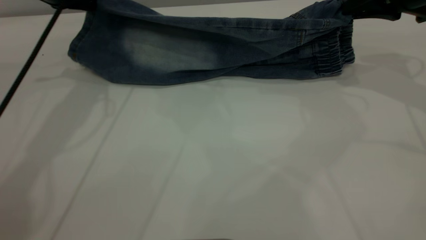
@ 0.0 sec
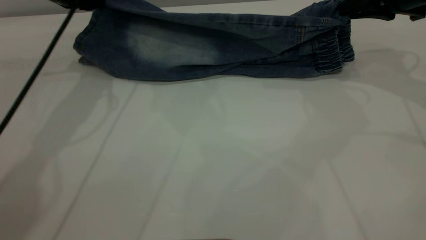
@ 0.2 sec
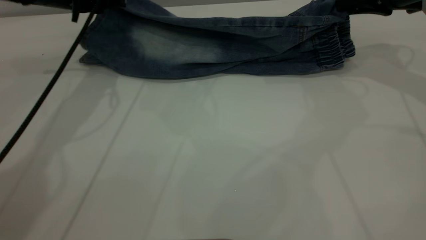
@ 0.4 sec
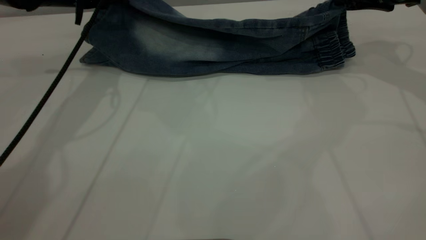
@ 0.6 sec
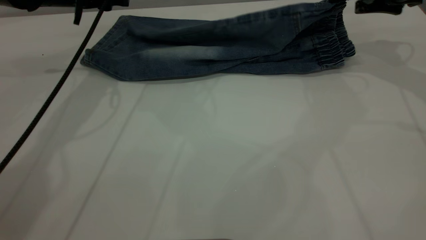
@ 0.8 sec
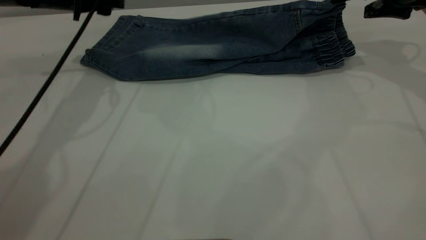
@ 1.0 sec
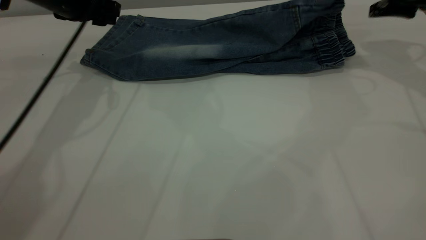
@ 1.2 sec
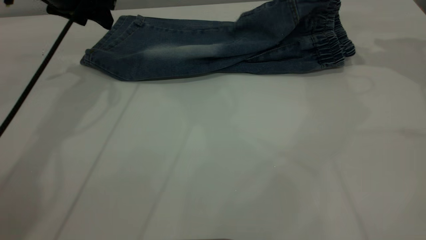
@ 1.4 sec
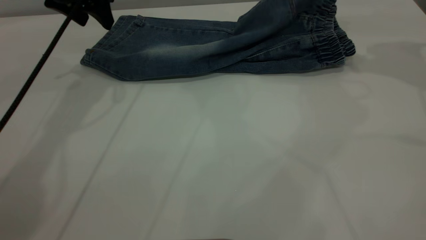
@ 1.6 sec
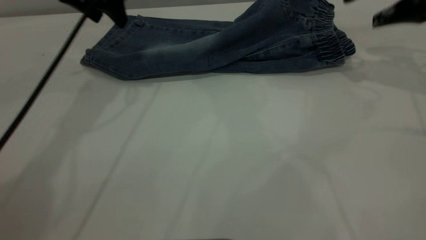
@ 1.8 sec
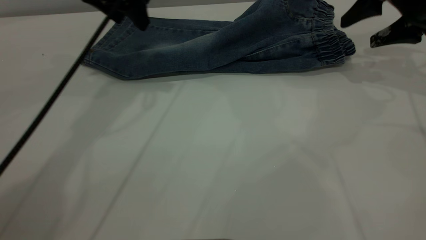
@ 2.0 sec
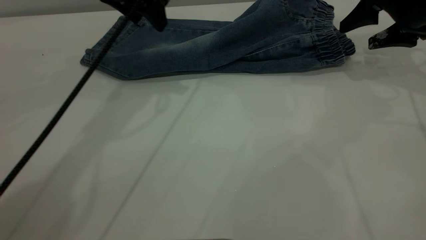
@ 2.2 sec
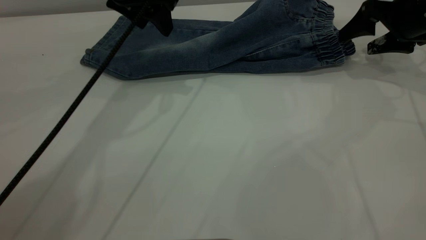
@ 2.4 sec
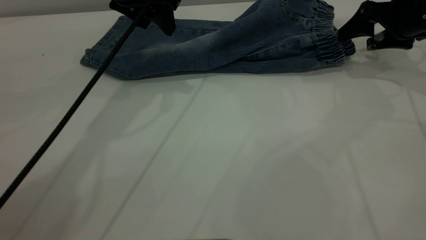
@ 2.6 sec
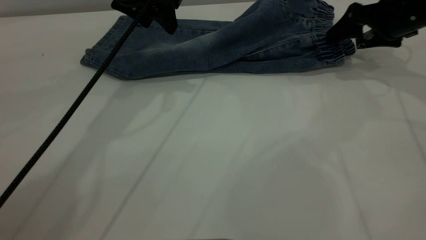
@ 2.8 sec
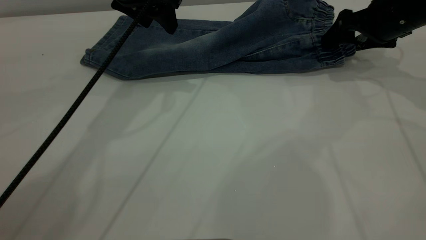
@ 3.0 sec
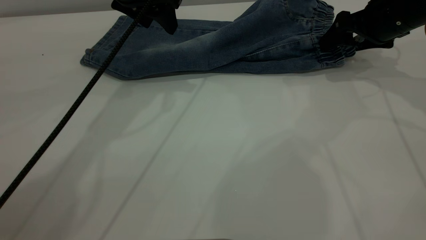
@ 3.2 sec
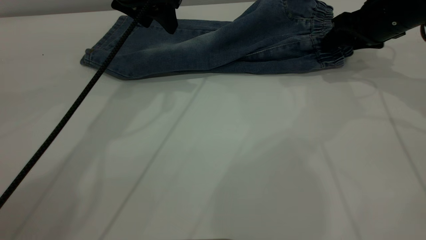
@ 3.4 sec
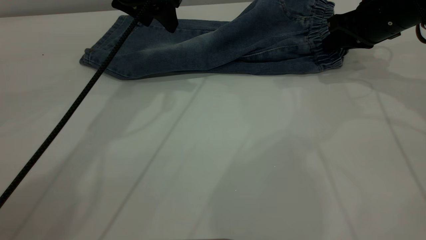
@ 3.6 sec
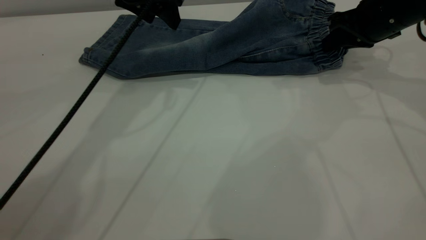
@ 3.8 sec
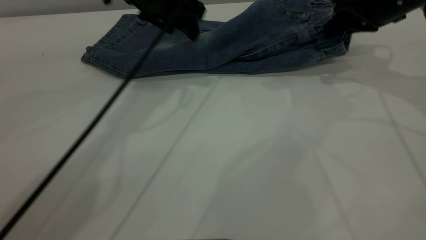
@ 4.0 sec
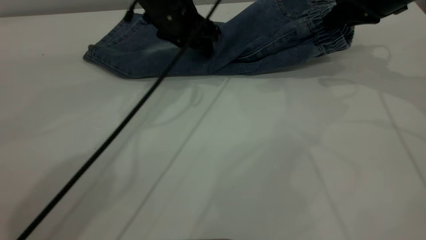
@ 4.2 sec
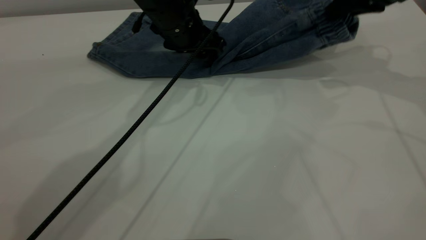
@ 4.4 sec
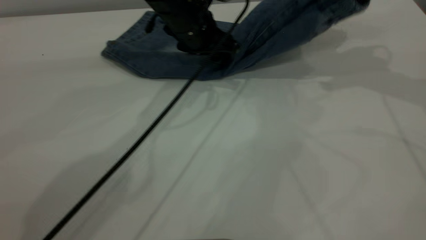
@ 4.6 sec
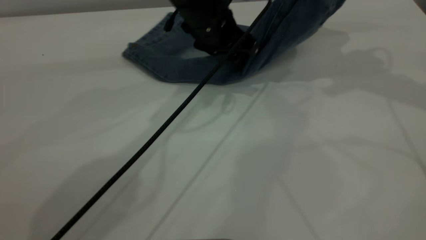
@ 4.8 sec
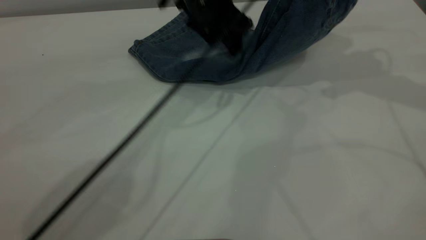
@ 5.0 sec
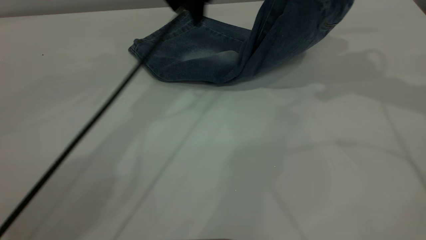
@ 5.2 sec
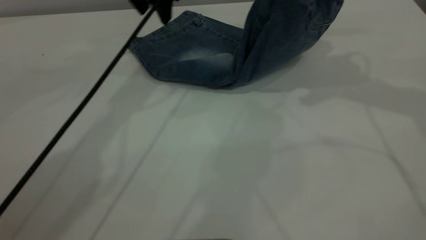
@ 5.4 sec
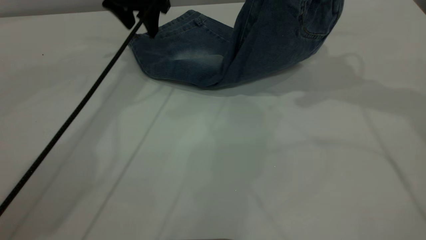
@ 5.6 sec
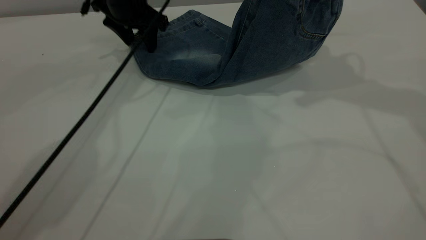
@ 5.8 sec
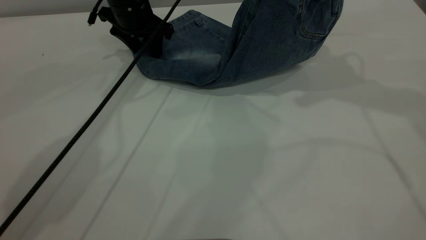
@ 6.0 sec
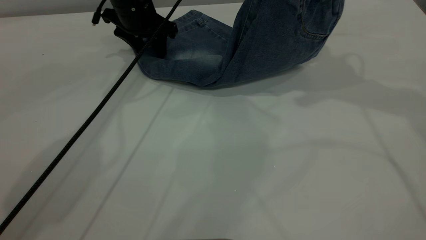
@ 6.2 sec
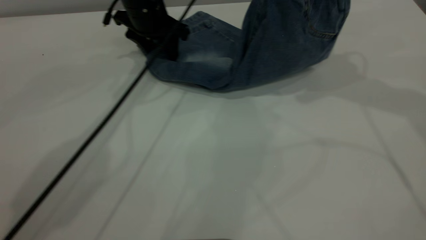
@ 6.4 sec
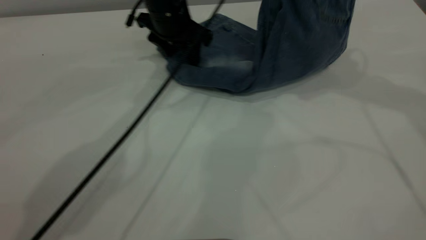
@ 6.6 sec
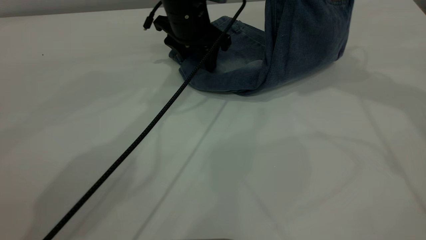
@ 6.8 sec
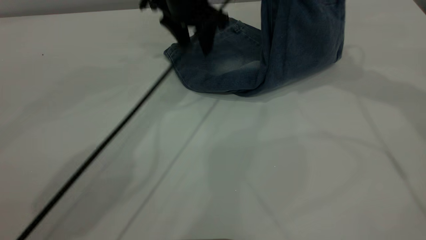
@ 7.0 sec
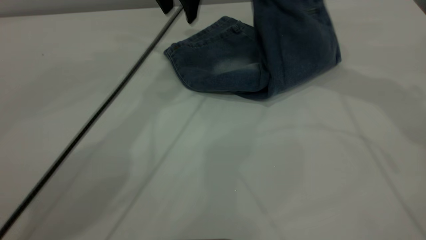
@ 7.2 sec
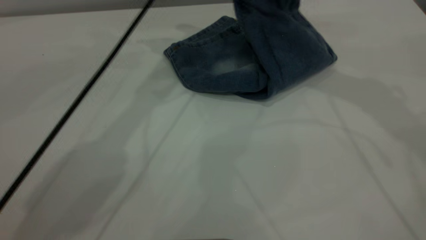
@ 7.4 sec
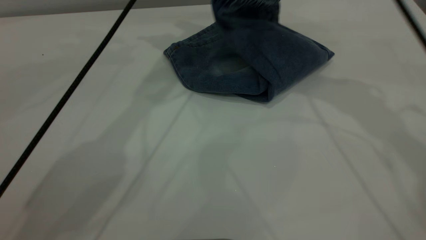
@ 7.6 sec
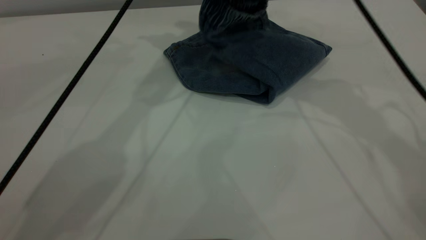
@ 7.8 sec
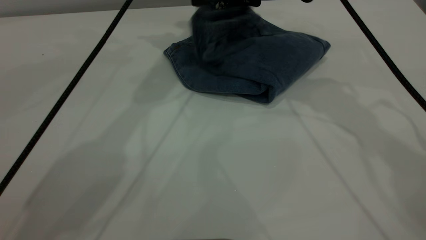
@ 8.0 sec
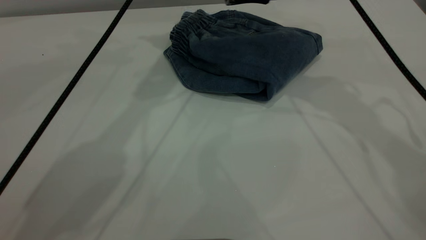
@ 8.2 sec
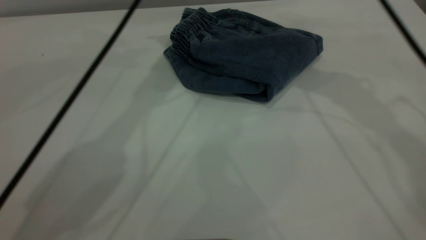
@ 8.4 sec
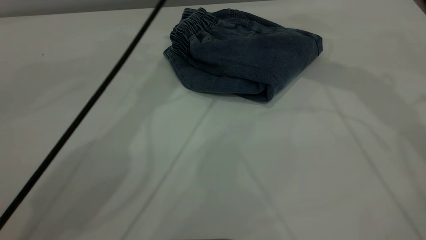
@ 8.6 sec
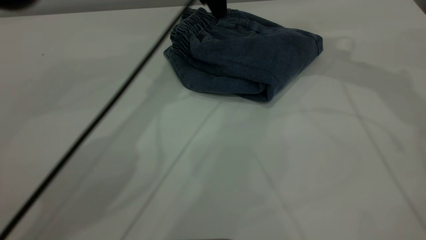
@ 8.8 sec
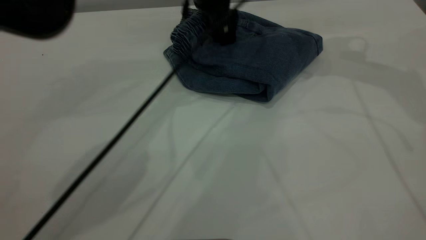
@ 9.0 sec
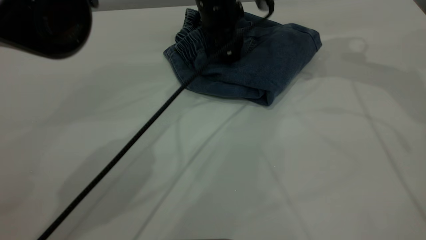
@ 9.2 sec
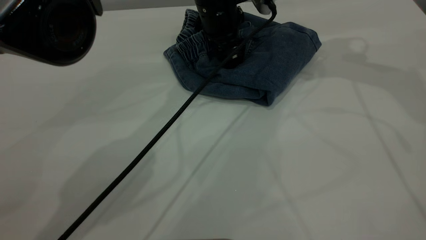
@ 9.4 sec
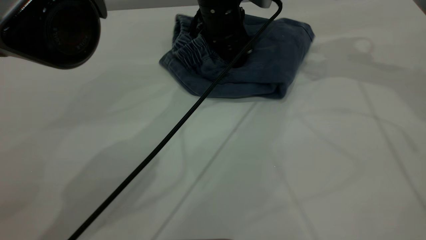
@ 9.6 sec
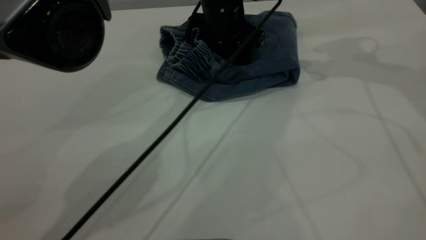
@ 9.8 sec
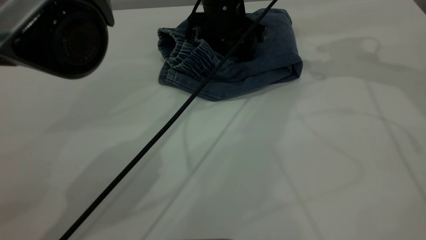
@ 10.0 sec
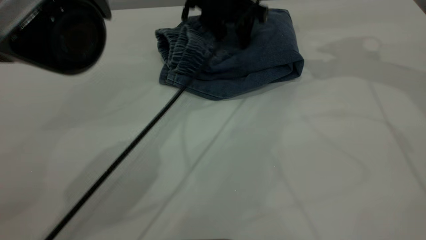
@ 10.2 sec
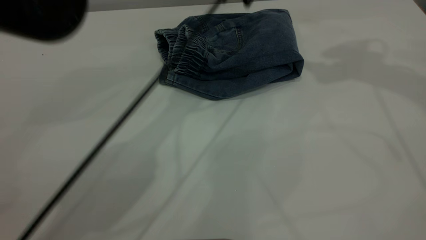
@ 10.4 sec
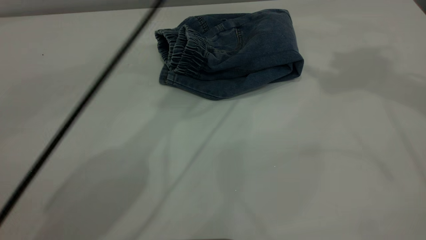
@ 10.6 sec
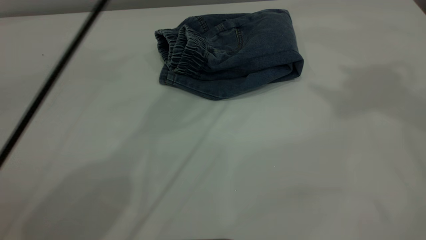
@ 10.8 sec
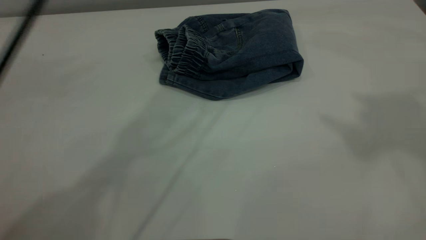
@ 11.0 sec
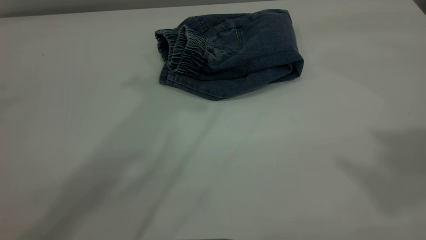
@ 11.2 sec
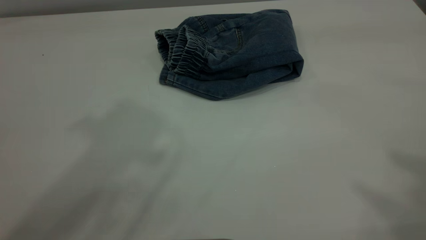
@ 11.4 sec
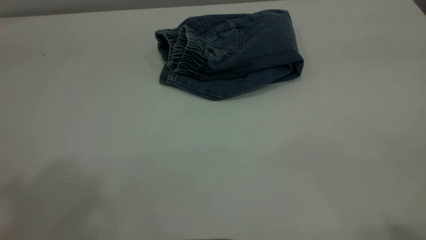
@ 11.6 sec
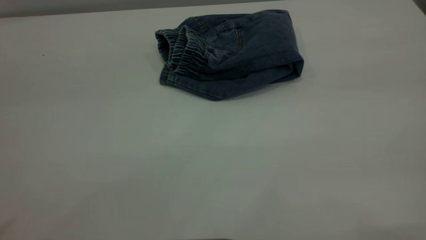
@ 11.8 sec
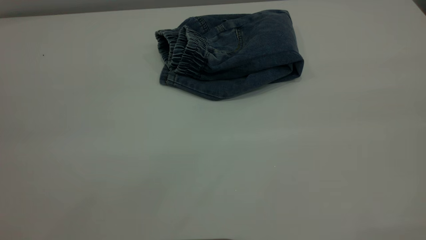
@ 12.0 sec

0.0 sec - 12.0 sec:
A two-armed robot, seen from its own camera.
Step, 1.6 sec - 8.4 sec: Fold your pants from right to left.
0.0 sec - 1.6 sec: The left gripper opens up, while the right gripper changes place by roughly 5 cm, and opens its fingers.
1.6 sec - 3.0 sec: The left gripper heads to the right, covering approximately 10 cm, while the right gripper is displaced downward by roughly 10 cm.
3.0 sec - 4.4 sec: The right gripper goes about 10 cm upward, and closes. The left gripper shifts some 10 cm downward and to the right.
4.4 sec - 6.0 sec: The left gripper goes roughly 10 cm to the left and forward. The right gripper travels upward and to the left by some 10 cm.
6.0 sec - 7.6 sec: The left gripper heads upward and to the right, covering some 15 cm; the right gripper heads to the left and downward, covering about 10 cm.
7.6 sec - 9.0 sec: The left gripper is displaced downward and to the right by about 15 cm. The right gripper is displaced to the right by approximately 10 cm, and opens its fingers.
9.0 sec - 10.4 sec: Both grippers move upward, approximately 10 cm.
10.4 sec - 12.0 sec: The left gripper moves backward, to the left and upward, about 60 cm. Meanwhile the right gripper heads backward, covering approximately 40 cm.
